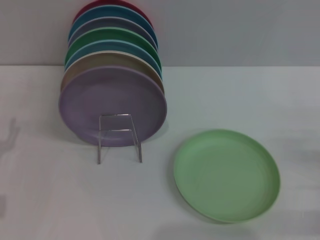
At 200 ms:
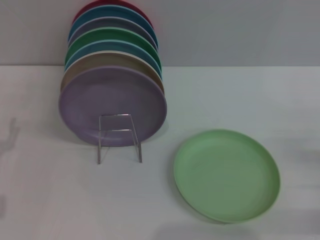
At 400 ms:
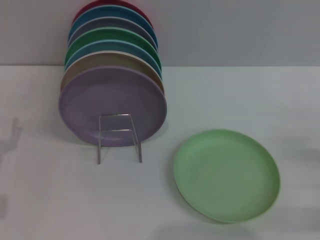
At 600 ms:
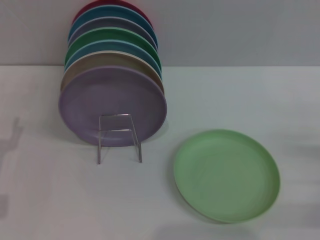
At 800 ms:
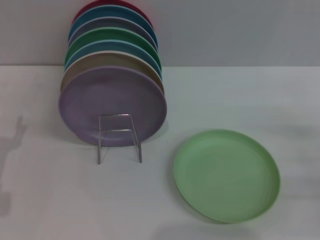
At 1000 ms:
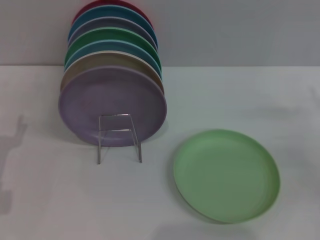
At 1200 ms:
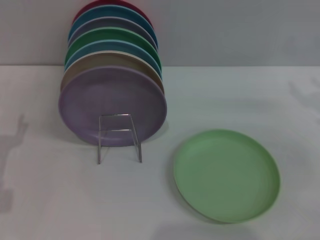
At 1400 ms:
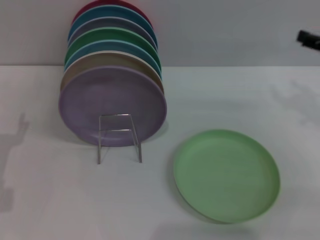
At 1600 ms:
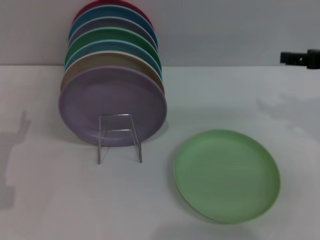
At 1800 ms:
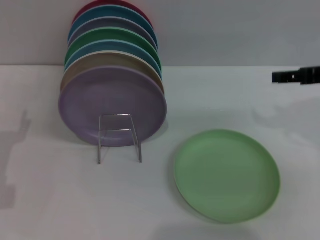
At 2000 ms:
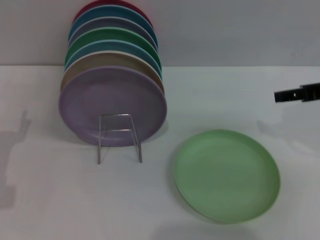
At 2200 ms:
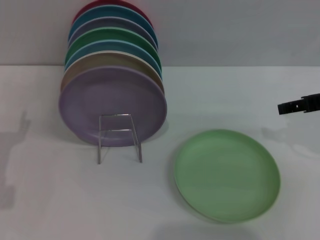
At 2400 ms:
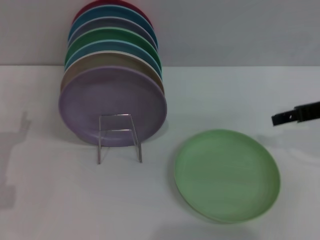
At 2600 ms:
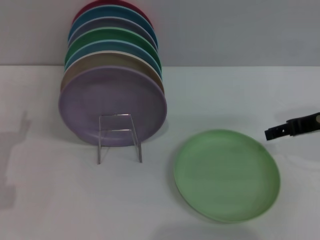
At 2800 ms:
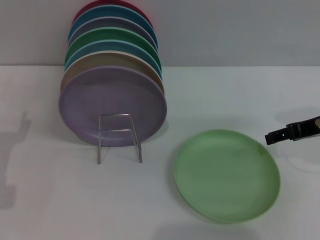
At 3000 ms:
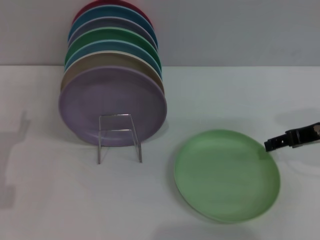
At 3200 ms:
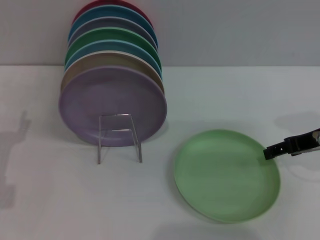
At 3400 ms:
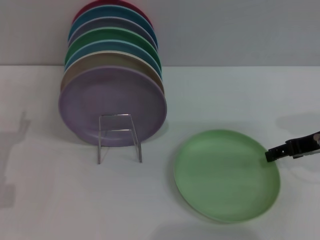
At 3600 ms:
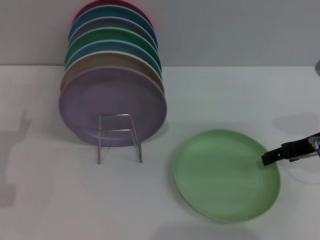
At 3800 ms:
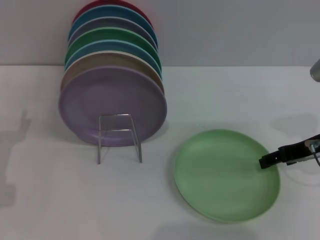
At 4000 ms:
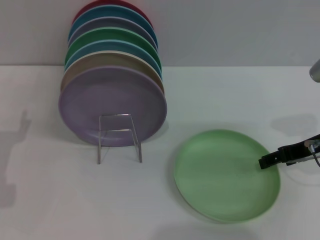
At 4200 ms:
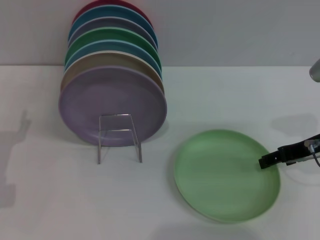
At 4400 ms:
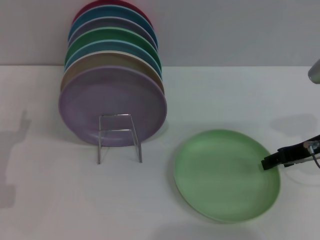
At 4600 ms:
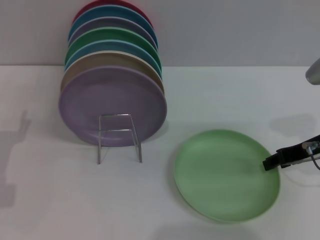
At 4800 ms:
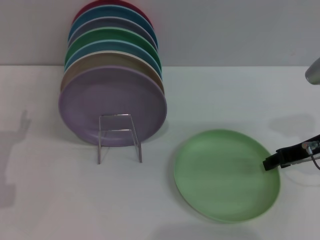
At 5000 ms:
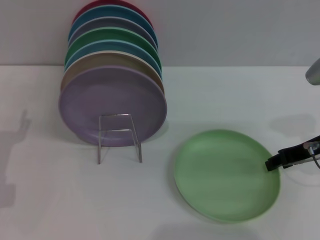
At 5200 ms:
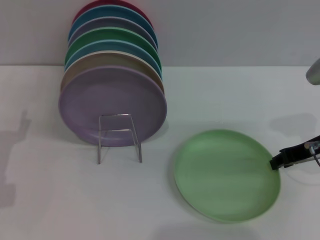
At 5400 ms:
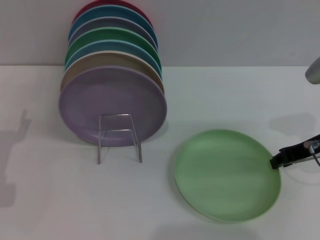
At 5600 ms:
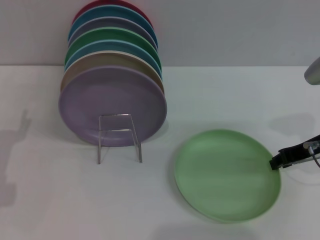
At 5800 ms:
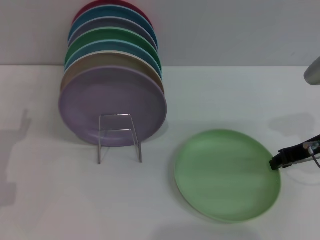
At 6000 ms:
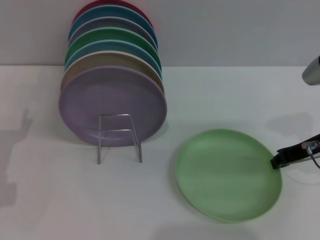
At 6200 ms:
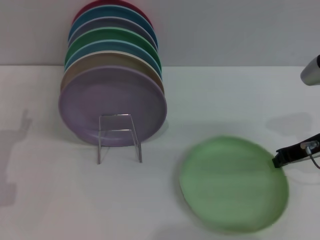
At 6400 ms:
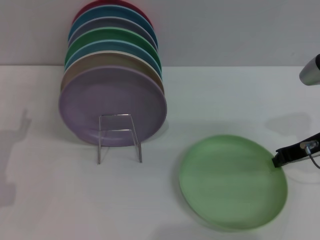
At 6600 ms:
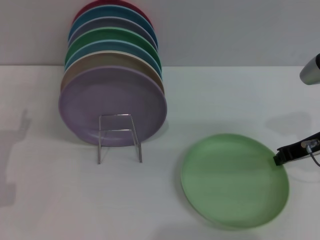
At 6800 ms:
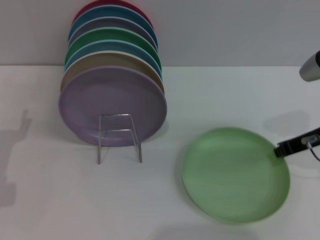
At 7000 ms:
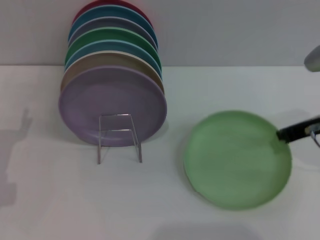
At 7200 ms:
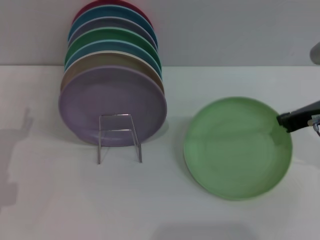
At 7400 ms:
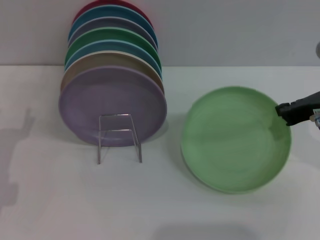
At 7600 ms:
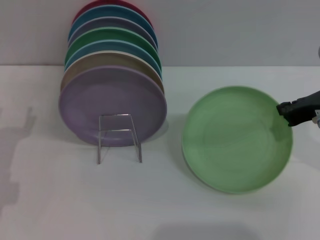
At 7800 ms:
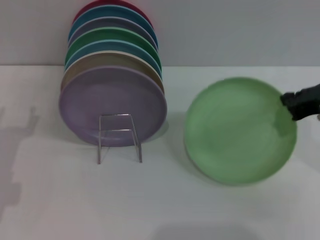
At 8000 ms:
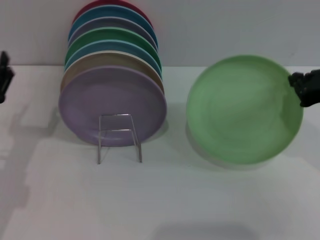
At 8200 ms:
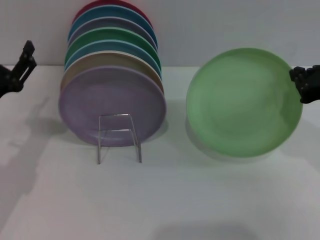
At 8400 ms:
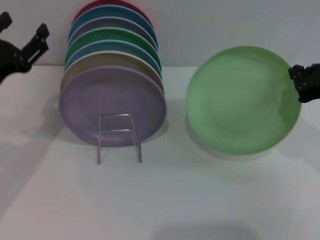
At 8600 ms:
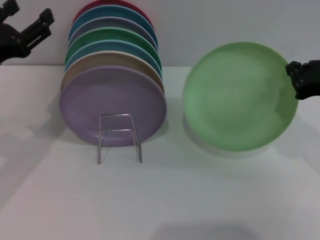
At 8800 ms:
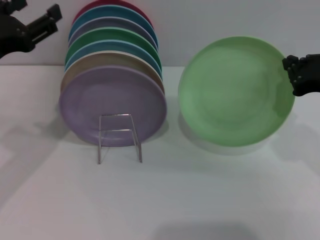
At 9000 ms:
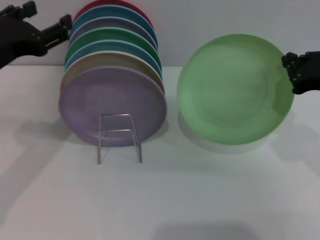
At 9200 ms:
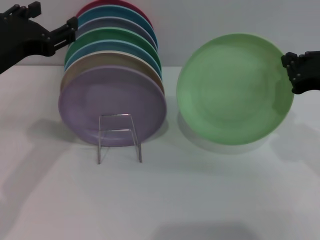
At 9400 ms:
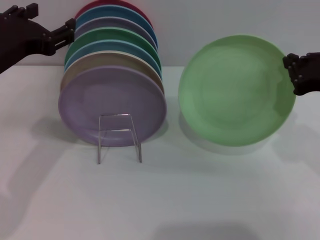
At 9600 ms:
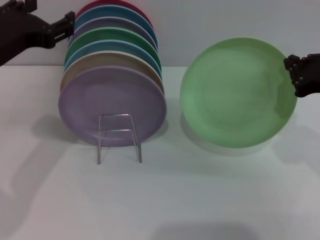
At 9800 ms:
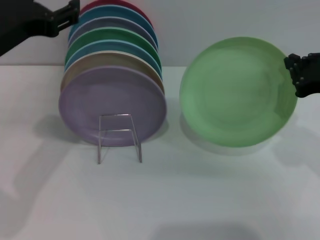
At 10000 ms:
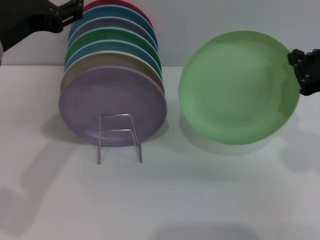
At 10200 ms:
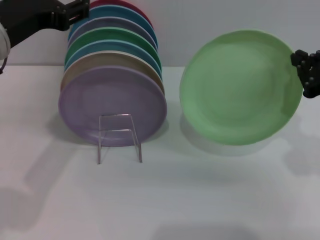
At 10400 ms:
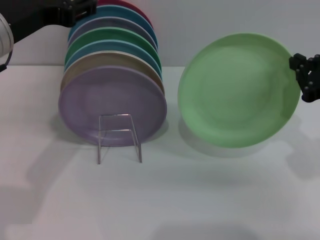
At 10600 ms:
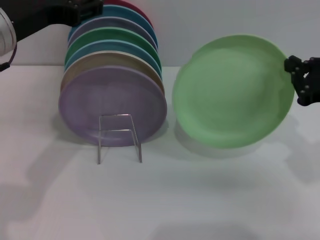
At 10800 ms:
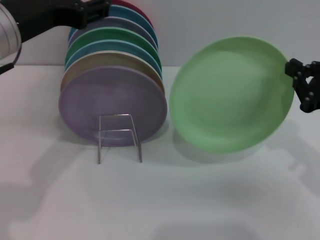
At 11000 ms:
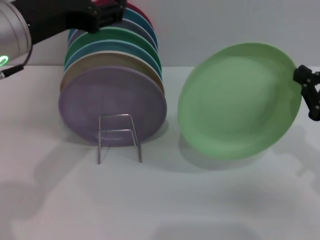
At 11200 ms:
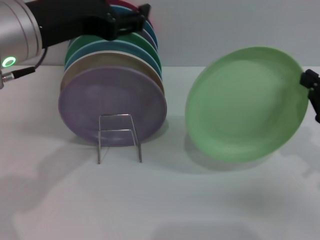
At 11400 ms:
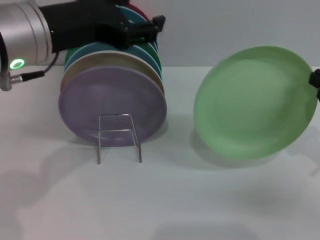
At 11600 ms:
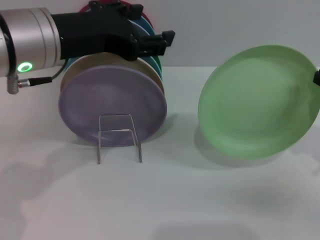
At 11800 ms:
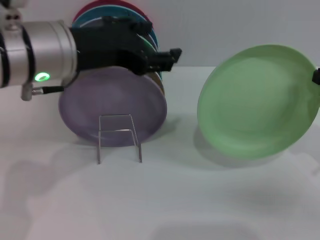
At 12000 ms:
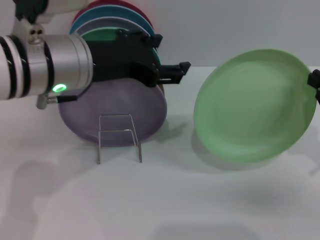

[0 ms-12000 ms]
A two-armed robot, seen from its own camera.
Task of the whole recording: Grip the plate with one hand, pass it to the other, then set it on the shelf.
Step, 0 ms to 7000 ms: Pick up the plate with the right gripper.
0 ms to 1600 ms: The right gripper goes roughly 25 cm upward, forward and to the left.
1600 ms to 3000 ms: The right gripper is displaced downward by about 5 cm.
3000 ms to 4400 ms: The grippers stay close to where they were, moving slightly.
4400 ms to 6000 ms: The right gripper closes up.
6000 ms to 7600 ms: The right gripper moves upward, roughly 5 cm.
7600 ms to 9000 ms: The left gripper travels upward by some 15 cm.
9000 ms to 10400 ms: The left gripper changes place by approximately 5 cm.
10400 ms to 12000 ms: The left gripper moves to the right, about 5 cm. The right gripper shifts by some 5 cm.

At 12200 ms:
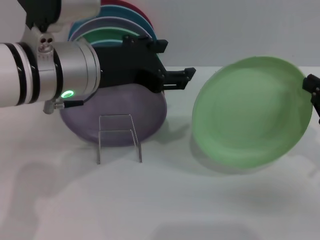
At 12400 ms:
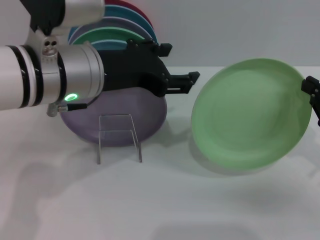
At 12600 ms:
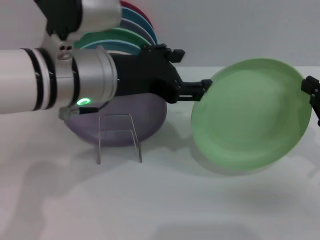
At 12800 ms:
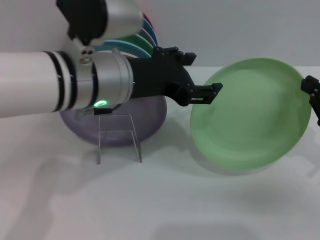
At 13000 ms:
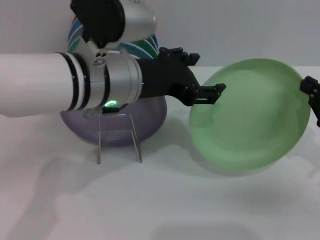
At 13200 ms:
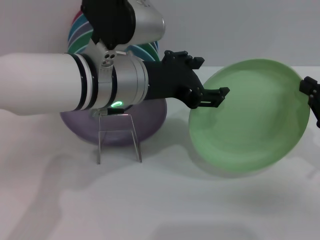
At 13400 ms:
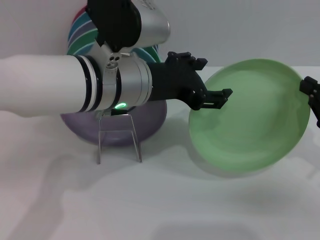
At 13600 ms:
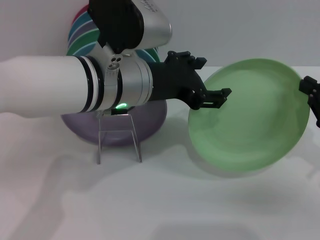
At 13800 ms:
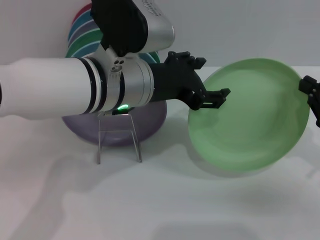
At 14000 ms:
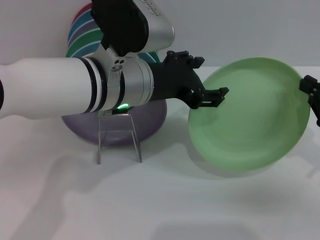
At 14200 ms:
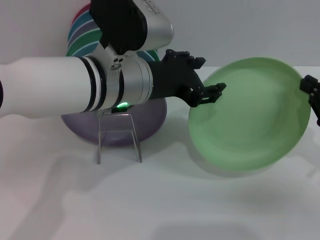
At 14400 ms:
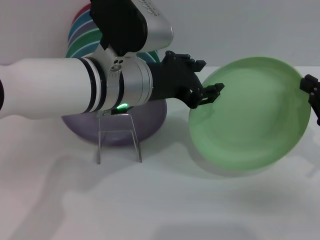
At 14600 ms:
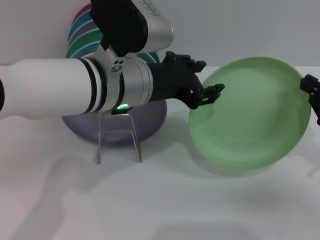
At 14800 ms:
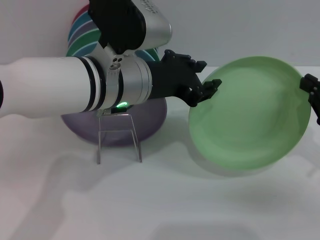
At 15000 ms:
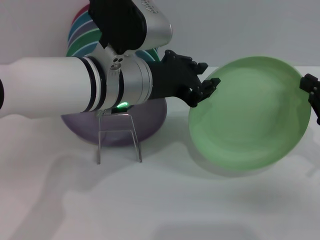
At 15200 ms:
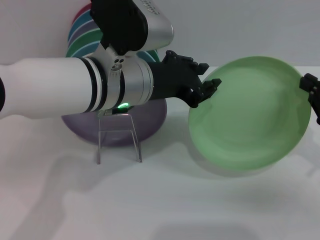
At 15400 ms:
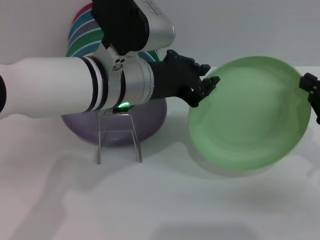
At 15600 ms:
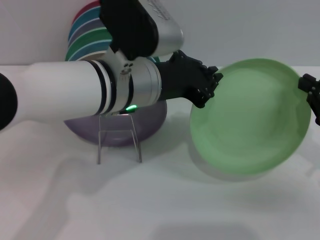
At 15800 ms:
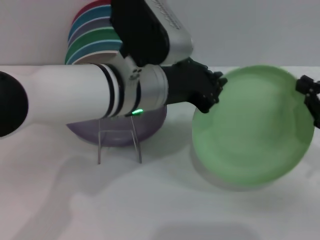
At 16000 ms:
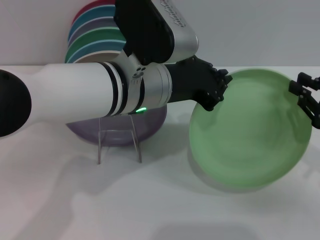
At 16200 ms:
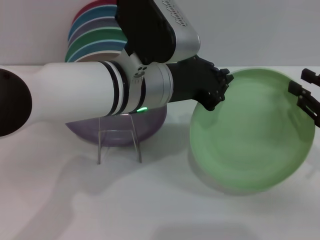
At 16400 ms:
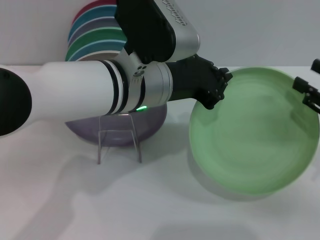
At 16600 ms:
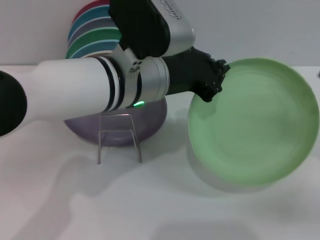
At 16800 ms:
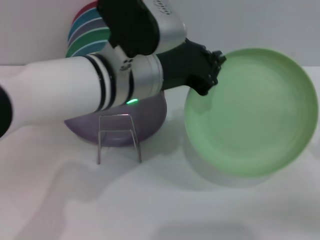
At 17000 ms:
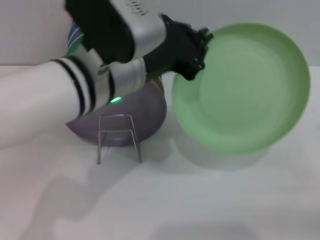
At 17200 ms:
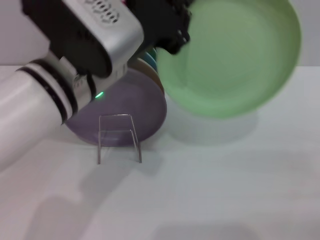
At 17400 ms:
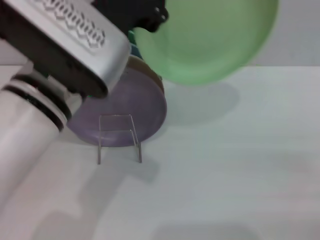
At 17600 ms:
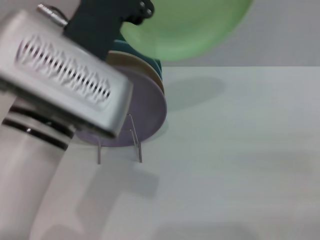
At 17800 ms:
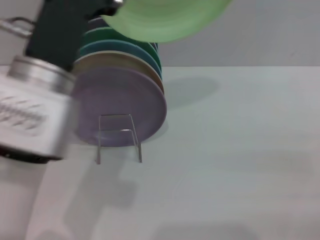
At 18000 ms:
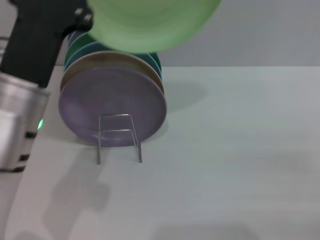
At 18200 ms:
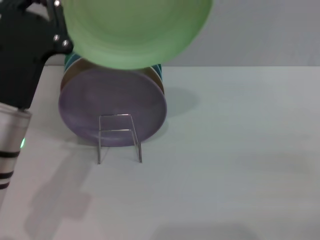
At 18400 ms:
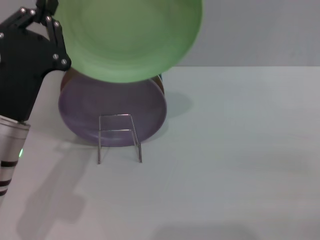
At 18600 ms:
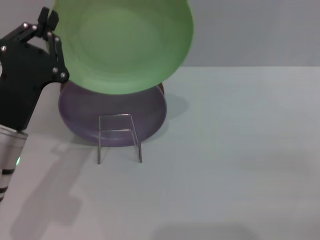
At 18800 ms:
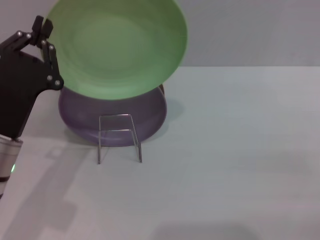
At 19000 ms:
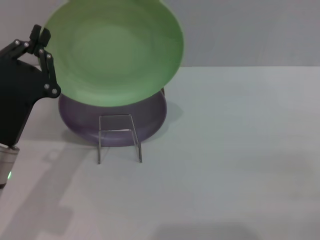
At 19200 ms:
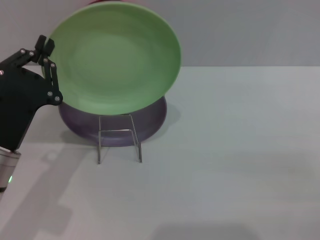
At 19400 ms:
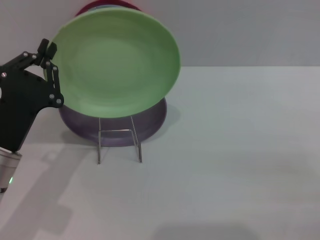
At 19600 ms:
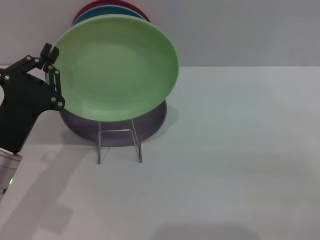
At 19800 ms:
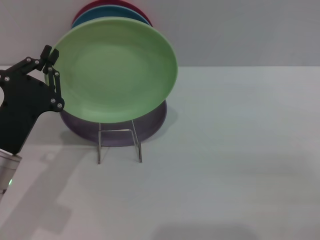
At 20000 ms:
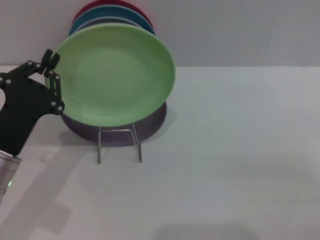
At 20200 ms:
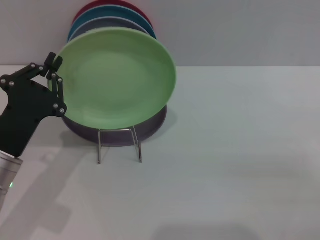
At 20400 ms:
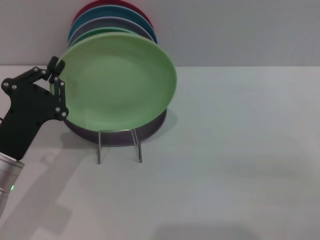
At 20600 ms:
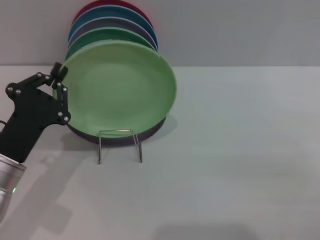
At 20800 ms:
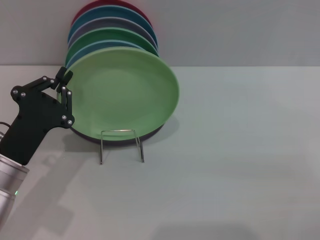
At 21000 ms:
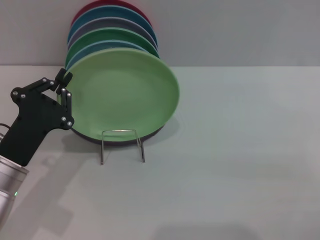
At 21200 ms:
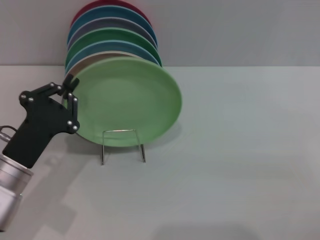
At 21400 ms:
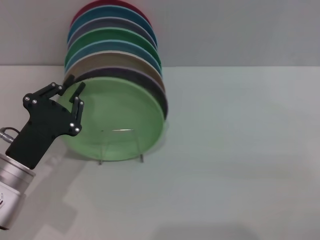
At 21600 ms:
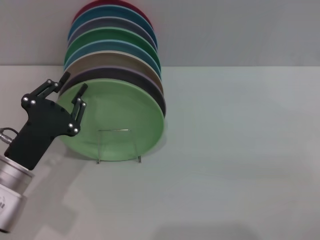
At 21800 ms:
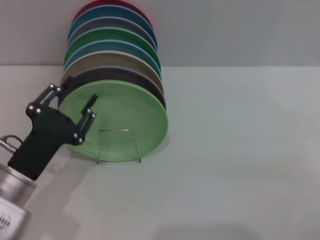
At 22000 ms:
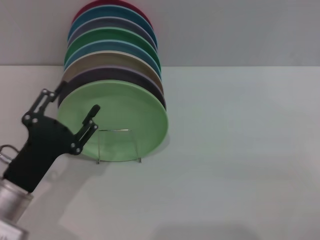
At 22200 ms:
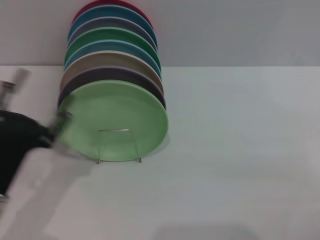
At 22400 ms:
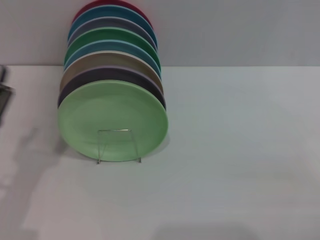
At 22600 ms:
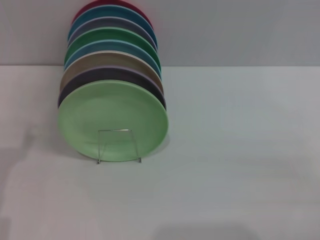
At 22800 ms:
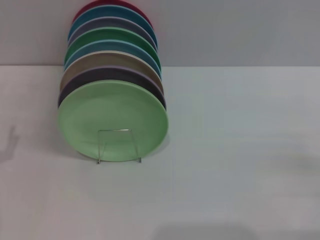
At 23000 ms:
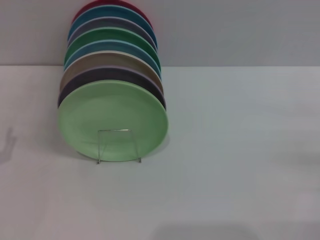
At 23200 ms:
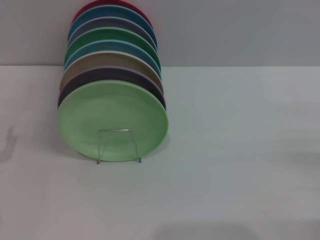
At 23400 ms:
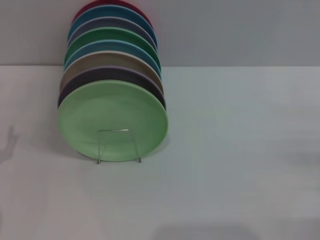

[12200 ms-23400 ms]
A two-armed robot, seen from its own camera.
Task of the whole recording: Grip the plate with one hand, pass it to the other, then set it on the shelf.
Step, 12200 ms to 16400 ms: Pass the plate from the right gripper to the left gripper.
Step, 16600 ms to 21600 ms: Place the plate on the shelf with the left gripper.
12200 ms to 13800 ms: The left gripper goes about 5 cm to the right.
13800 ms to 15400 ms: The left gripper closes up.
15400 ms to 17000 ms: The left gripper closes its fingers. Meanwhile the right gripper travels to the right and backward by approximately 10 cm, and opens.
17000 ms to 18600 ms: The left gripper moves to the left and downward, about 15 cm.
18600 ms to 20200 ms: The grippers make only small movements.
20200 ms to 21800 ms: The left gripper opens up.
21800 ms to 23400 ms: The left gripper goes approximately 10 cm to the left, and opens its fingers.
